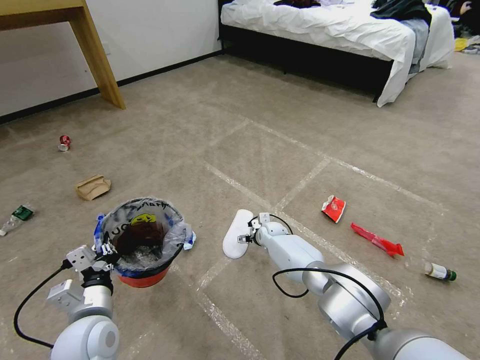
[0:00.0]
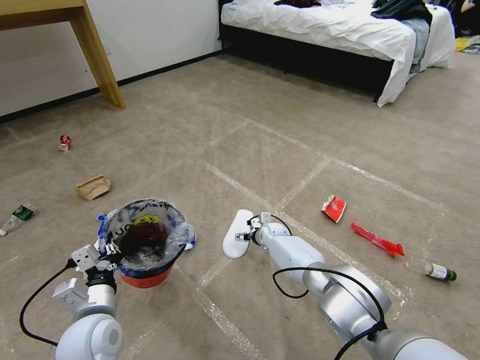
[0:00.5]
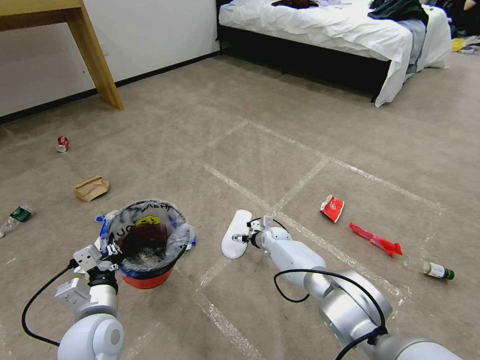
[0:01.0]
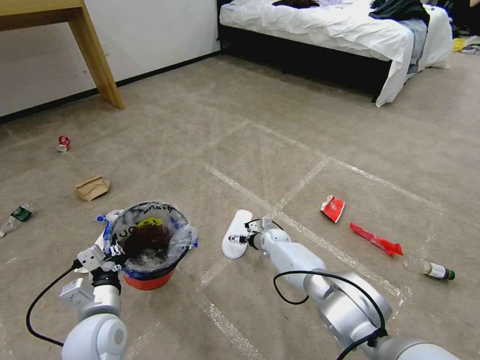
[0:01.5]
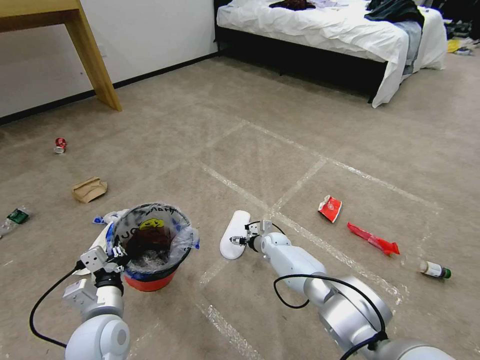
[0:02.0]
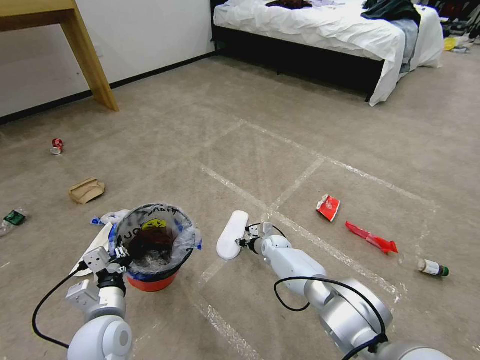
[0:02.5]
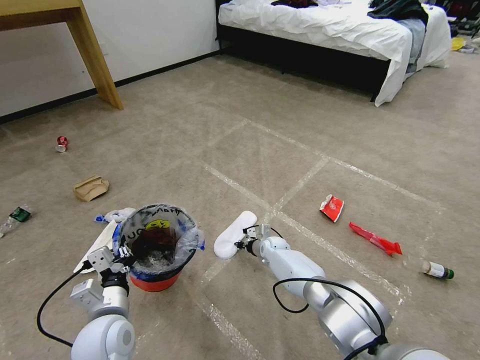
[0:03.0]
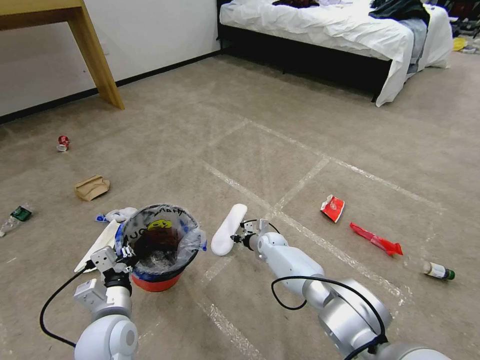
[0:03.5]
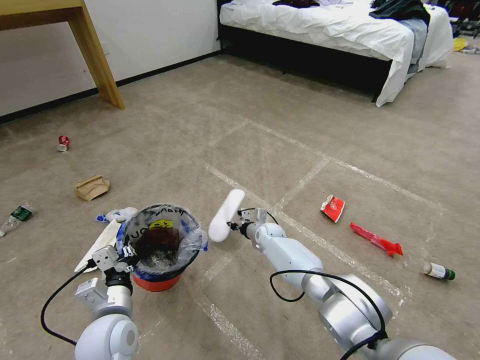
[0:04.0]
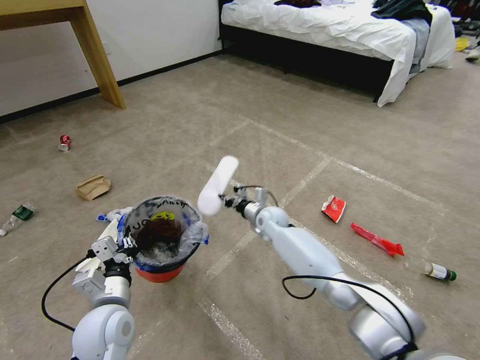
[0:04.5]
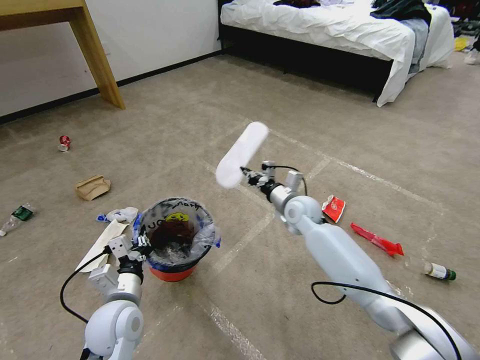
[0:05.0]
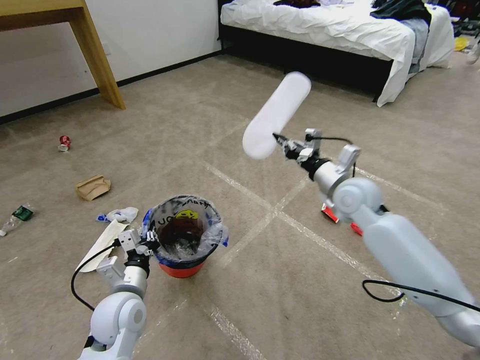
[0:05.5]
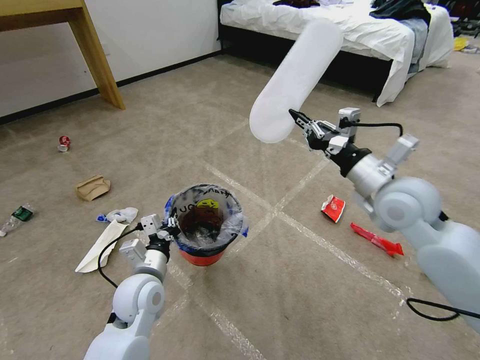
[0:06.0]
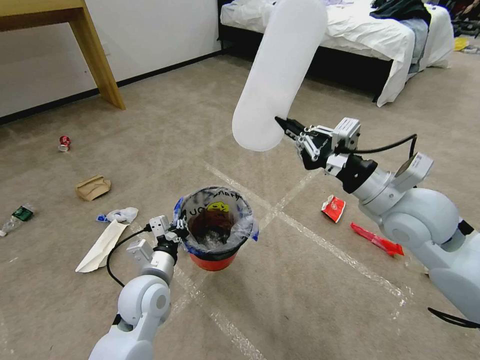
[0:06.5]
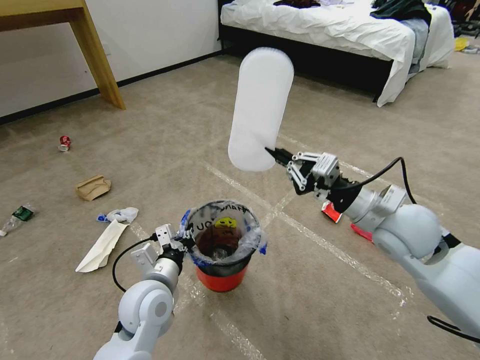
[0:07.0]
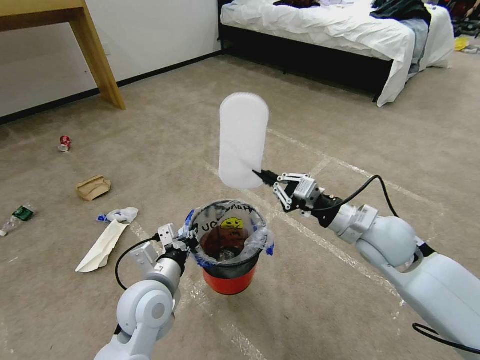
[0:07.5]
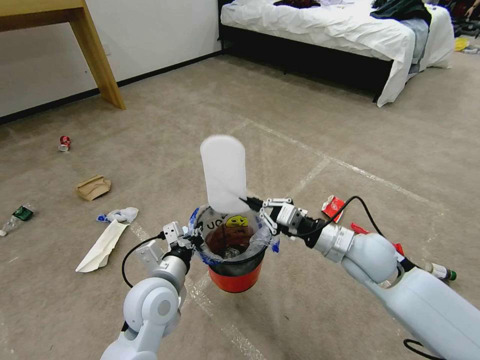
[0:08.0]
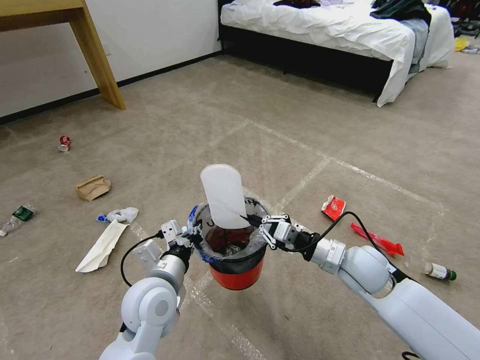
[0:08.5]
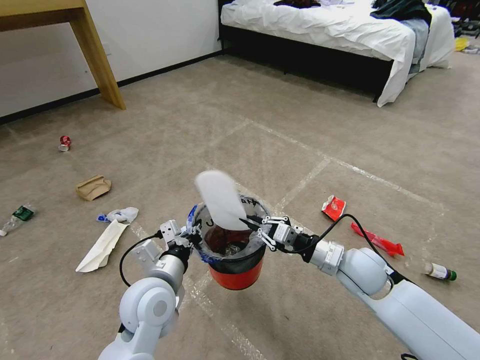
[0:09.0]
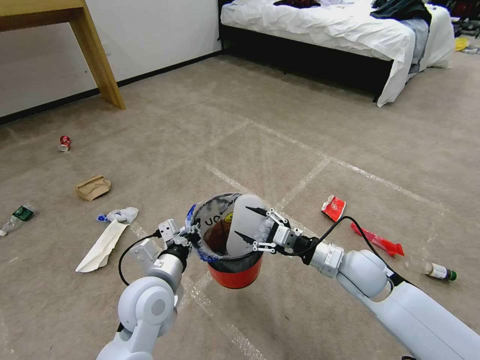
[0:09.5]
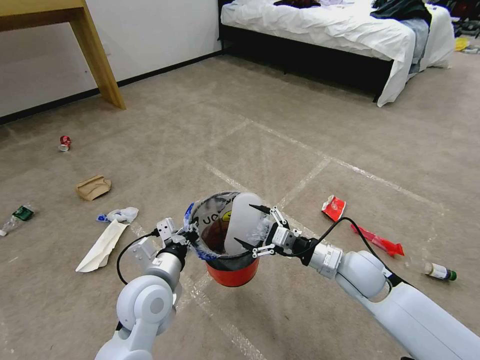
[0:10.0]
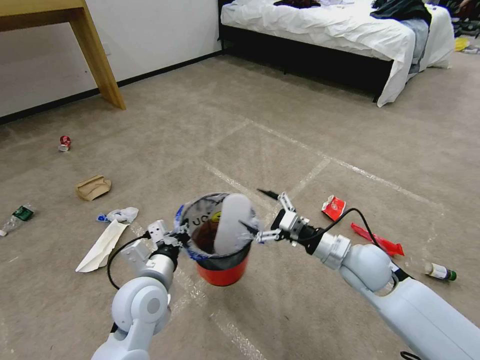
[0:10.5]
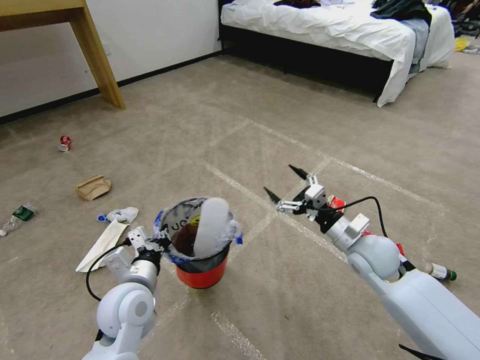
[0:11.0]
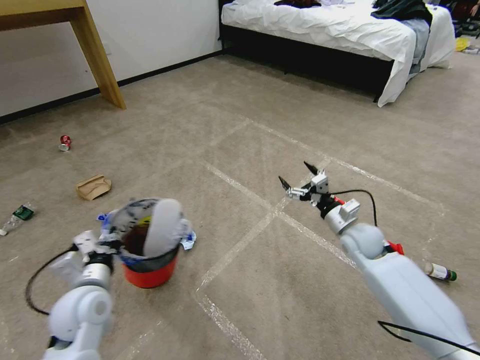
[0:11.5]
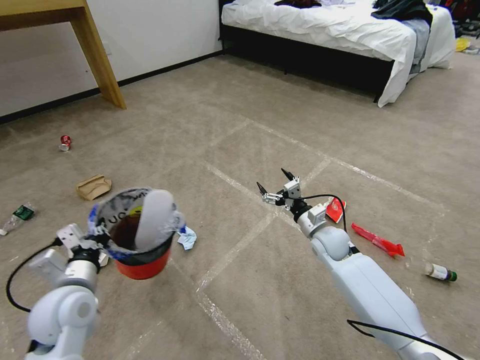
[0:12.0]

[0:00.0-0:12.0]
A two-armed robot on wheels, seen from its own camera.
Task of the whole recording: Pick up the trash bin and place the garbage on the floor into it.
0:00.0 to 0:02.0: The grippers make only small movements.
0:02.0 to 0:04.0: The right gripper moves about 5 cm, and closes.
0:04.0 to 0:06.0: The right gripper heads upward, to the right and backward, covering some 40 cm. The left gripper goes approximately 10 cm forward.
0:06.0 to 0:08.0: The right gripper moves downward, approximately 15 cm. Meanwhile the left gripper changes place by approximately 5 cm.
0:08.0 to 0:10.0: The right gripper travels downward by some 5 cm, and opens up.
0:10.0 to 0:12.0: The right gripper heads forward and downward, covering roughly 15 cm, while the left gripper is displaced to the left by approximately 15 cm.

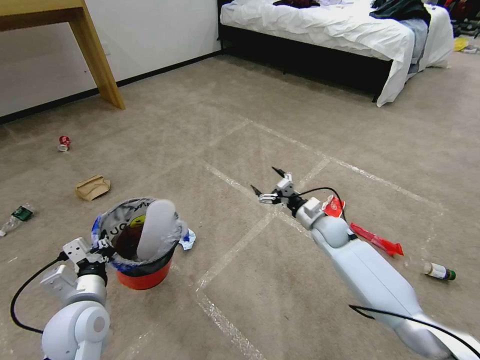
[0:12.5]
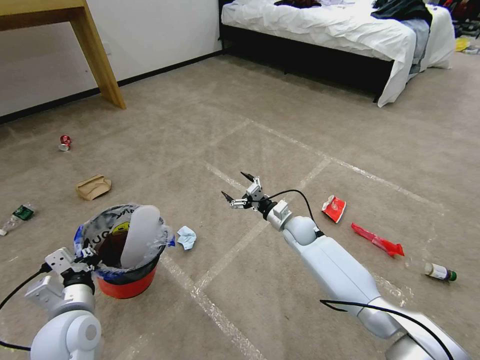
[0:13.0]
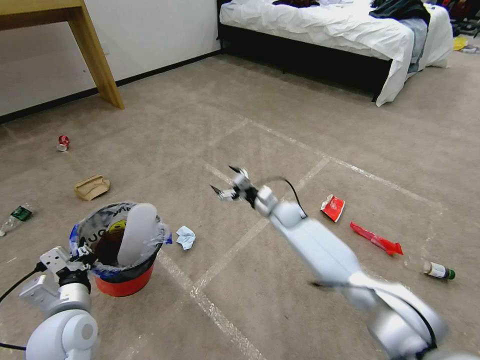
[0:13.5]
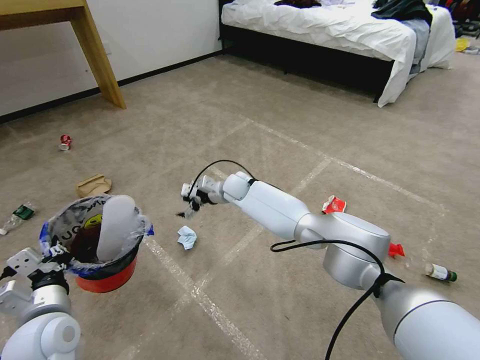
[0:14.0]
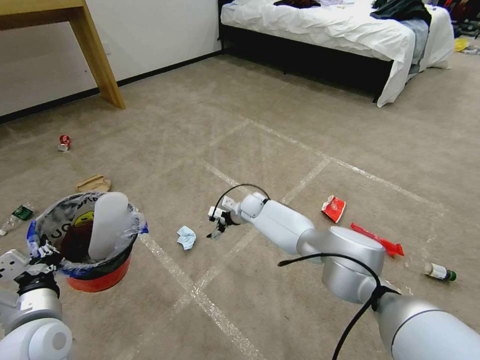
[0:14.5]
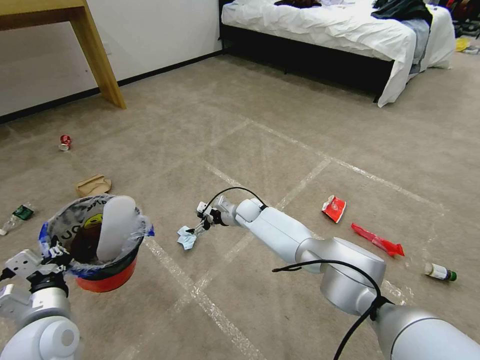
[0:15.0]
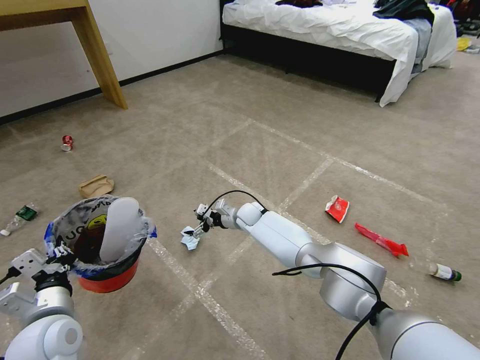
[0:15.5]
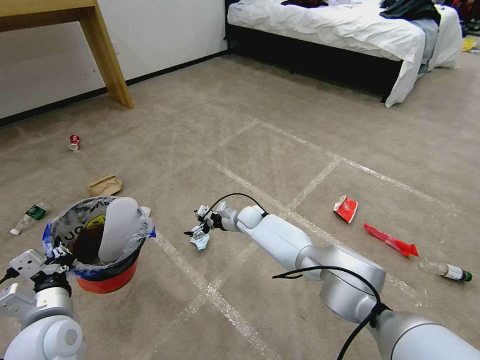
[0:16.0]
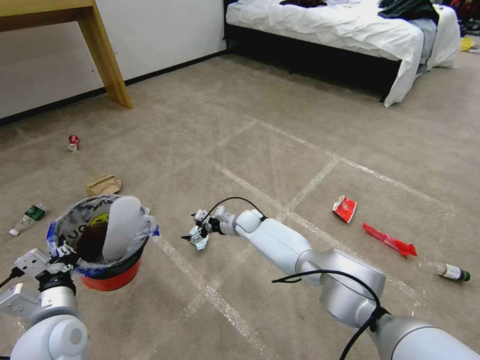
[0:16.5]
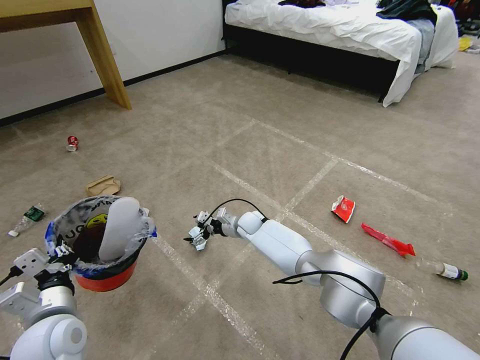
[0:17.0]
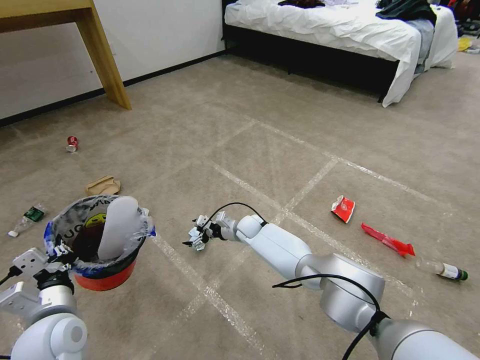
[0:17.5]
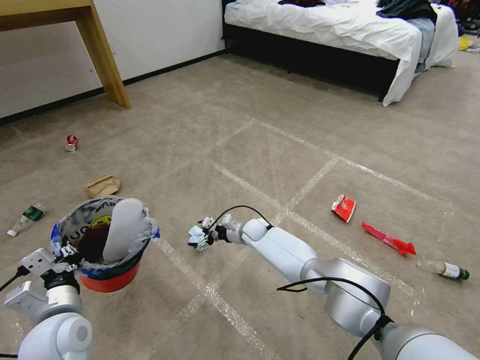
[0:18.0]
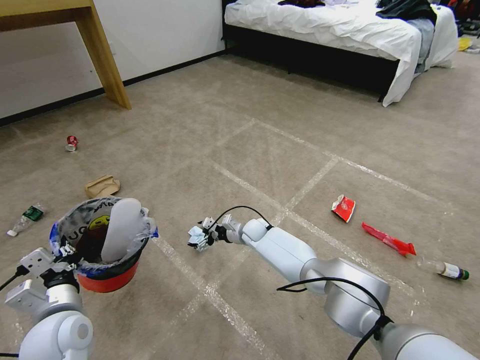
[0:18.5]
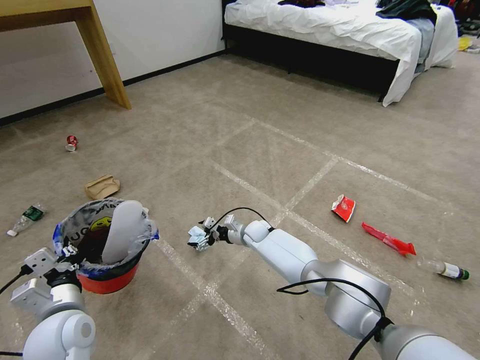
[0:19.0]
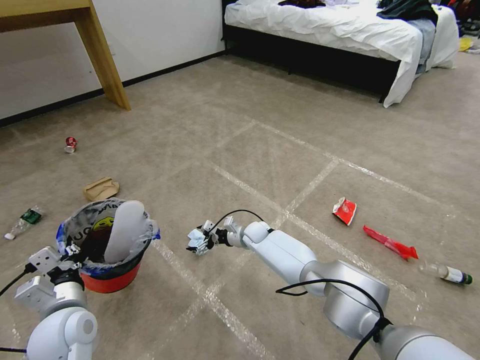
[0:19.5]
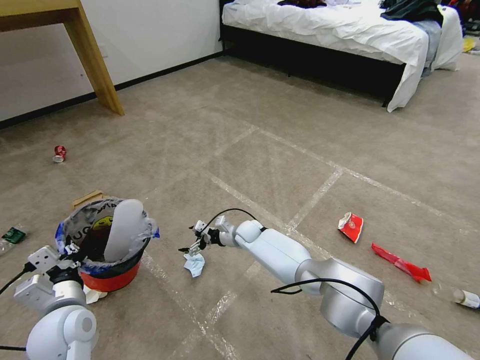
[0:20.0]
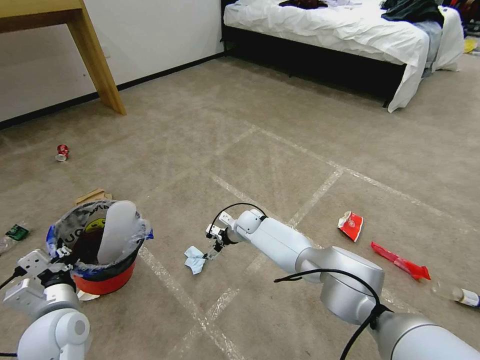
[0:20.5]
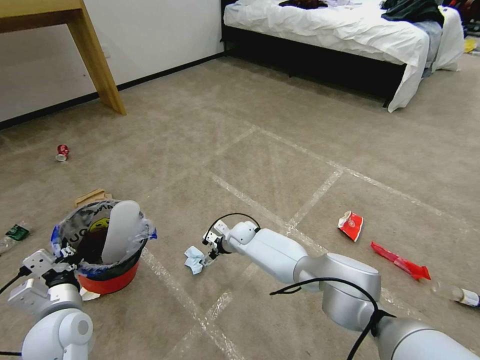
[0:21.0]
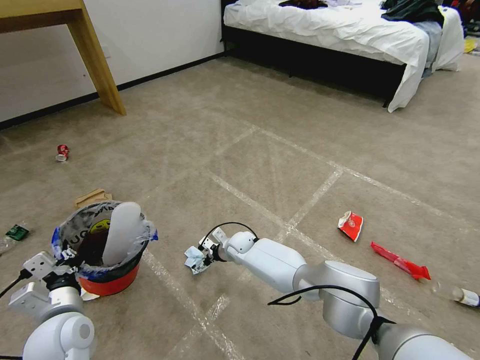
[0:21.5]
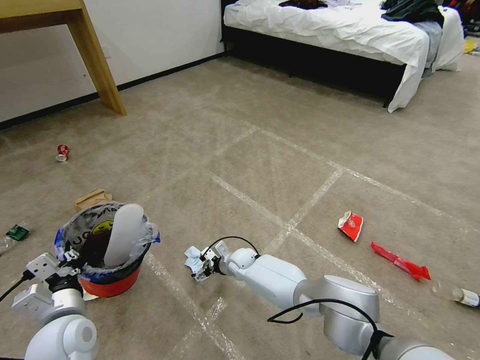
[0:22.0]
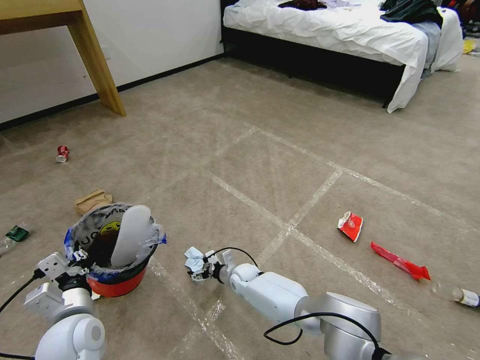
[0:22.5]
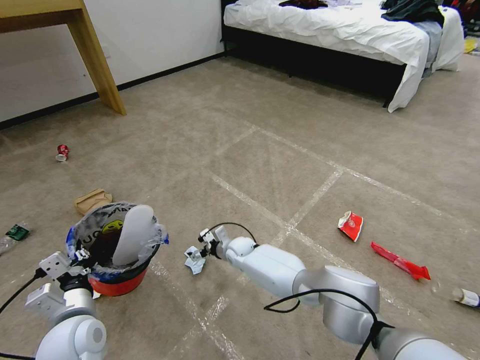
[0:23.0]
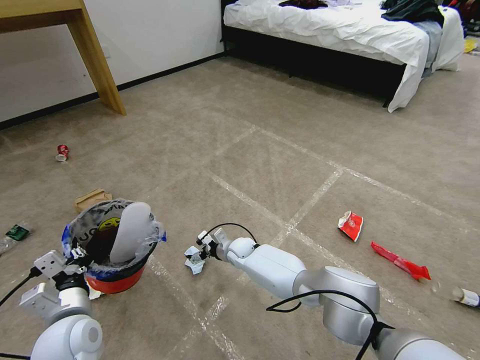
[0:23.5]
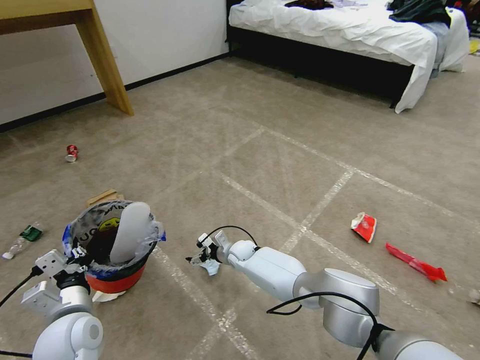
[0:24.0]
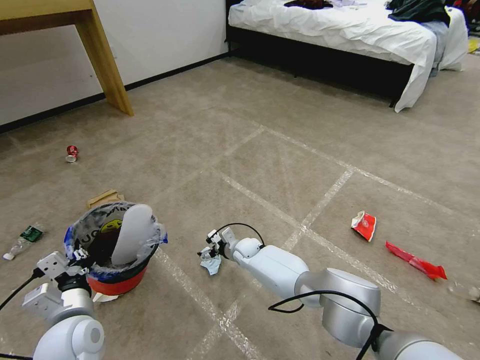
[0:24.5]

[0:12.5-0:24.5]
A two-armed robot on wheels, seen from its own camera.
Task of the whole recording: Pick up the trash bin and place the garbage on the floor into it.
0:12.5 to 0:14.5: The left gripper ends up some 5 cm from where it was; the right gripper heads to the left and forward, covering some 25 cm.
0:16.5 to 0:18.5: There are only small adjustments of the grippers.
0:20.5 to 0:22.5: The right gripper travels backward and downward by about 20 cm.
0:22.5 to 0:24.5: The right gripper shifts about 10 cm forward and upward.

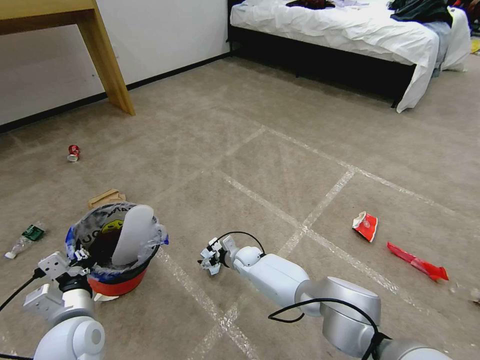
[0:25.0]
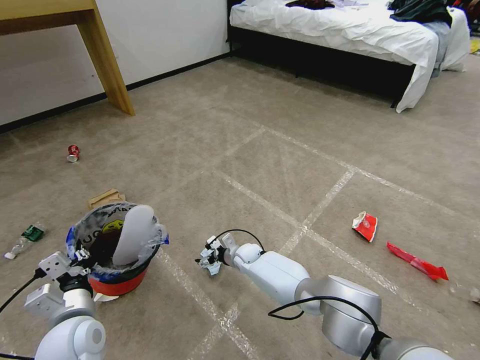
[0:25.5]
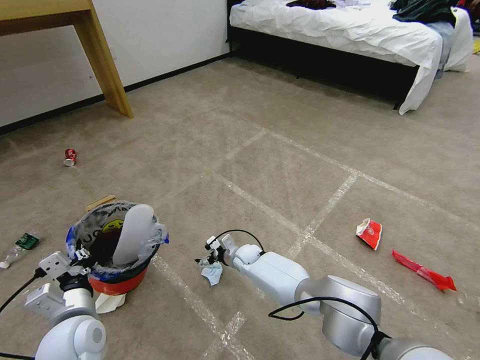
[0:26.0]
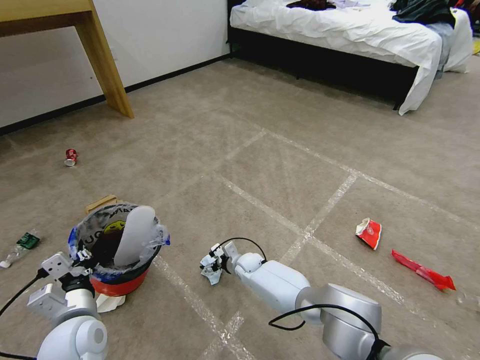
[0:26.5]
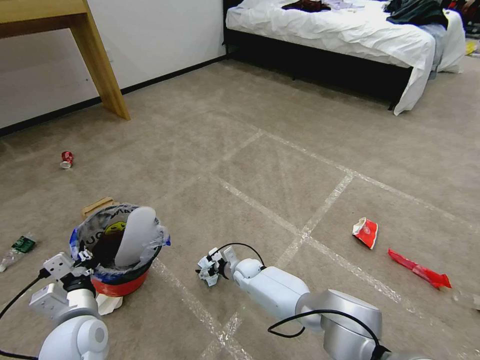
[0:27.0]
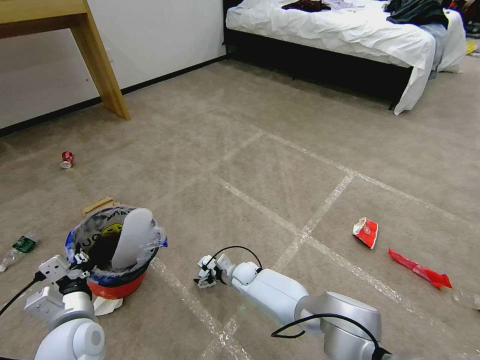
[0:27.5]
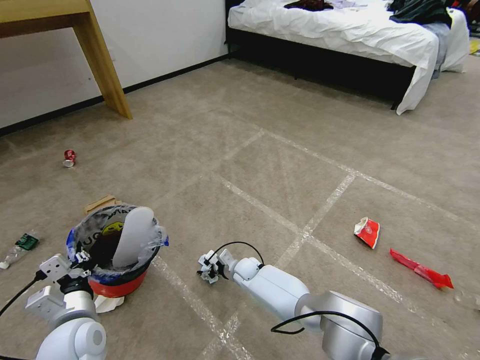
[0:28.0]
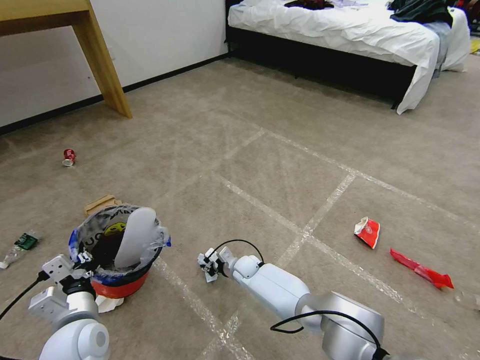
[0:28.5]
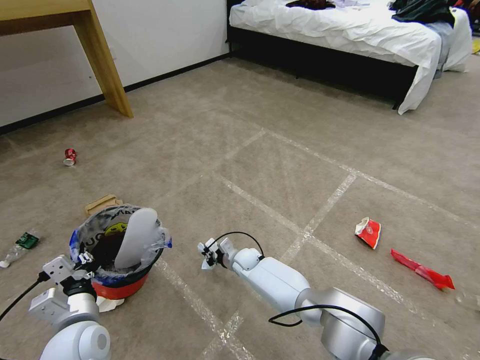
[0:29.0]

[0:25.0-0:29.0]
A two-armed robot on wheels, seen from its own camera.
Task of the whole recording: Pick up the trash bin and place the garbage on the floor into it.
0:25.0 to 0:27.0: The grippers make only small movements.
0:27.0 to 0:29.0: The right gripper closes up.
